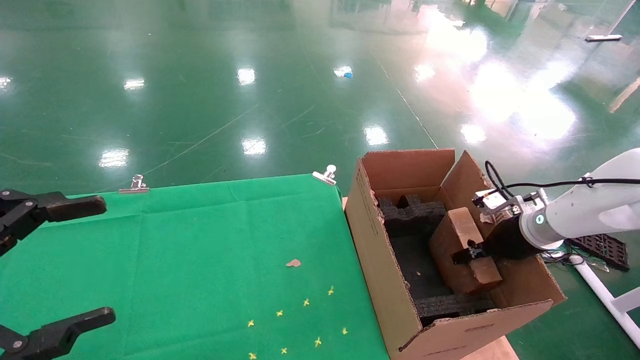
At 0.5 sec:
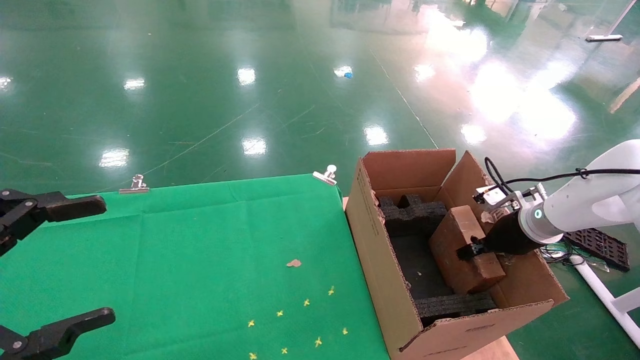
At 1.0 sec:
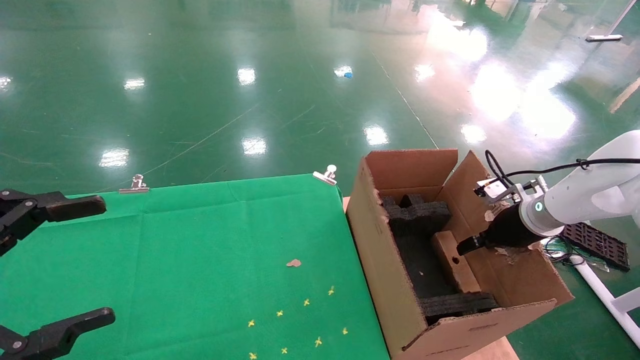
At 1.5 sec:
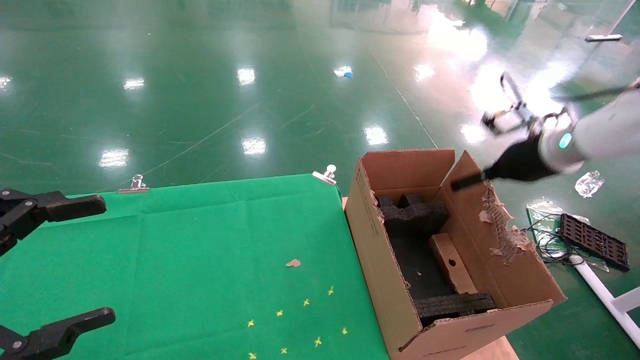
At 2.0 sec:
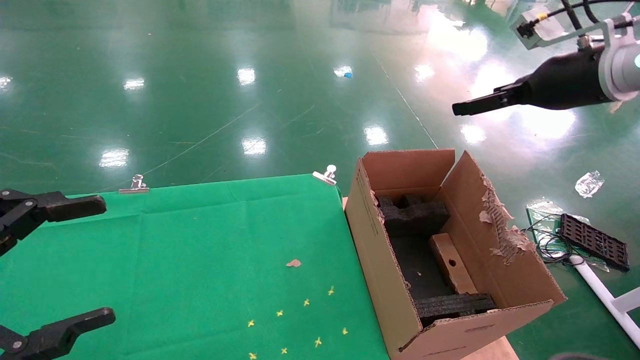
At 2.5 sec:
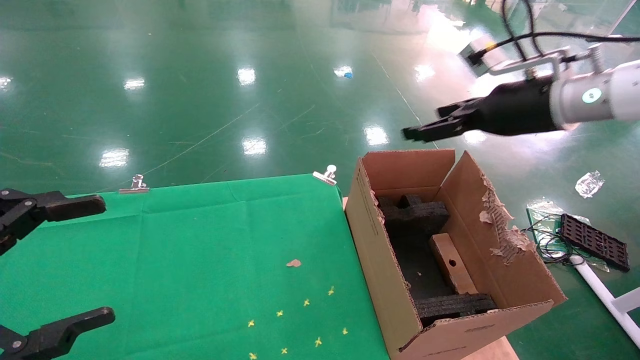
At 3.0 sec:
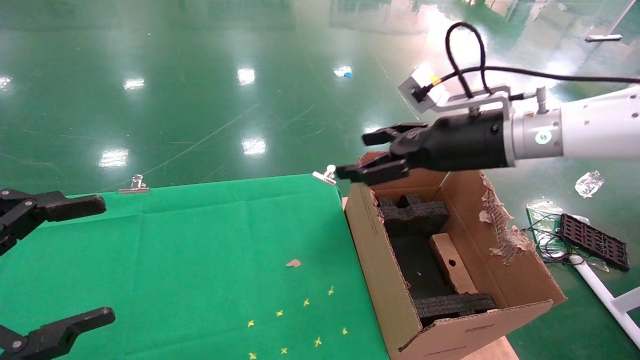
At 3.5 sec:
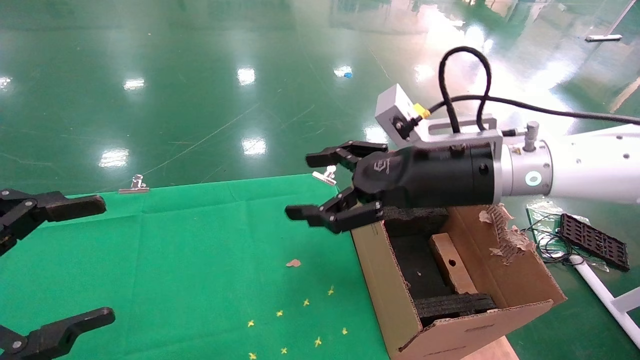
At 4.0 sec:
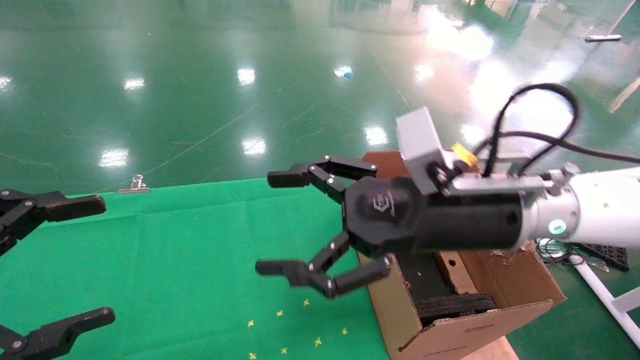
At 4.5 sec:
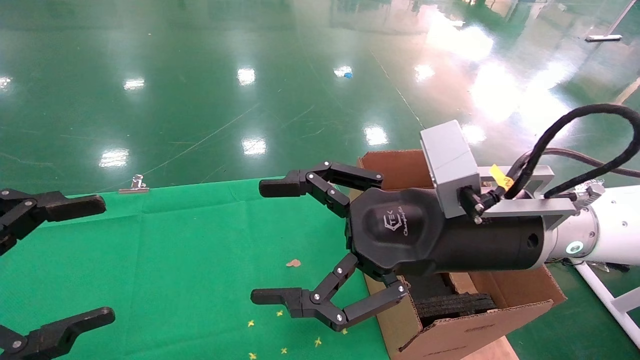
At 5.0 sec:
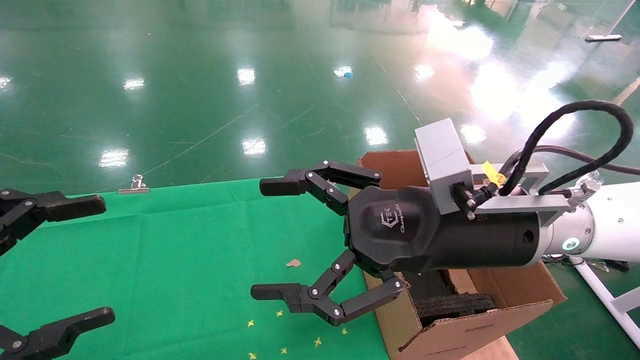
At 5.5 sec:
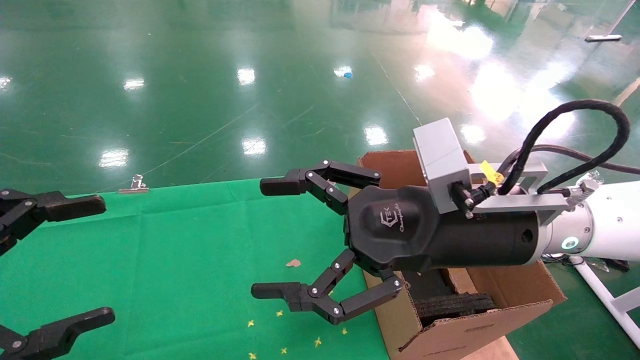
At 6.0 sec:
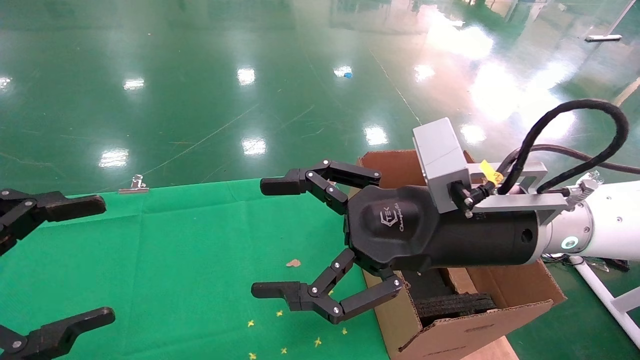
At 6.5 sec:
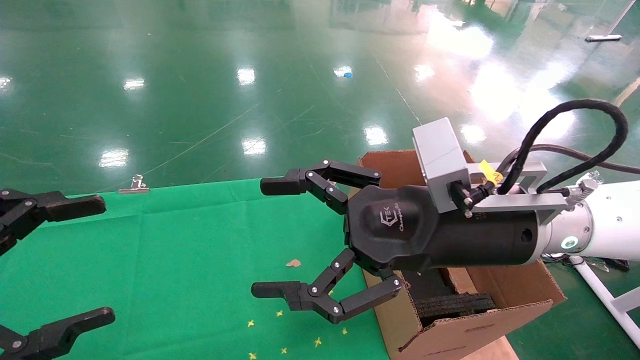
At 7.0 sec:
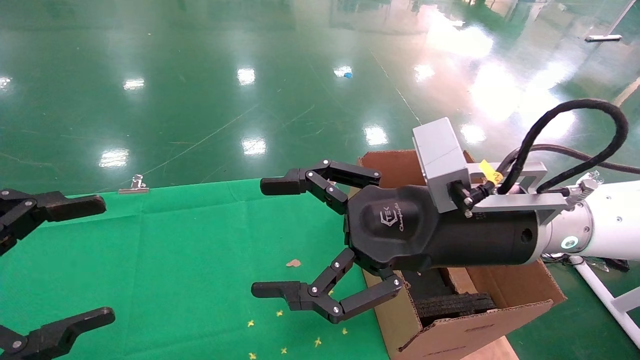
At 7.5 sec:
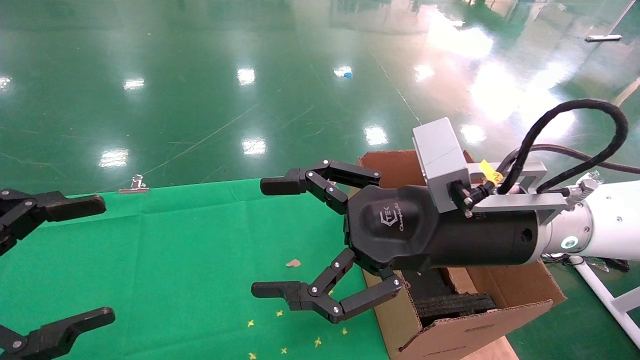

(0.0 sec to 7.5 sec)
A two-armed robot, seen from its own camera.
Task of the whole recording: using a robotic arm to pick up a cardboard box and palace it the carton.
0.0 sec - 2.0 sec: The right gripper goes about 25 cm upward, and opens its fingers.
2.0 sec - 4.0 sec: The right gripper moves to the left, downward and backward, about 25 cm.
4.0 sec - 5.5 sec: There are only small adjustments of the grippers.
5.5 sec - 7.5 sec: The two grippers keep their place.
